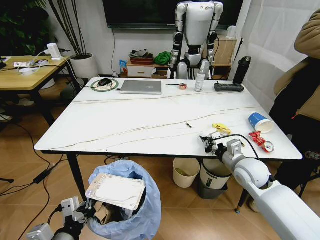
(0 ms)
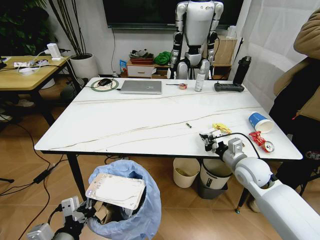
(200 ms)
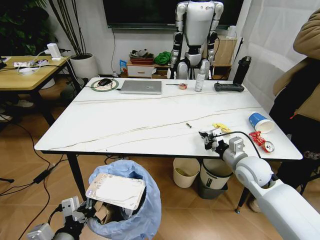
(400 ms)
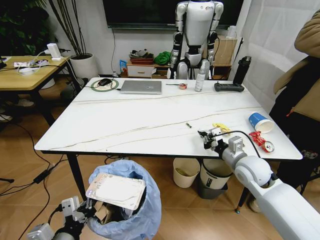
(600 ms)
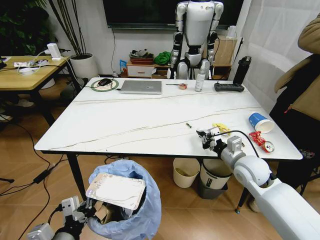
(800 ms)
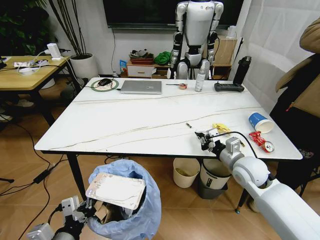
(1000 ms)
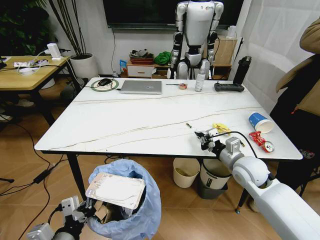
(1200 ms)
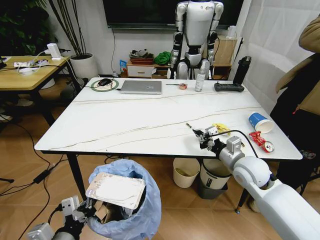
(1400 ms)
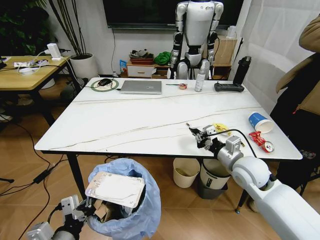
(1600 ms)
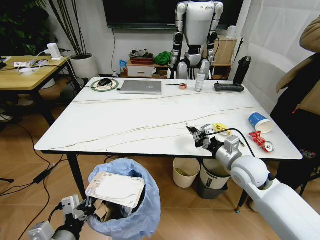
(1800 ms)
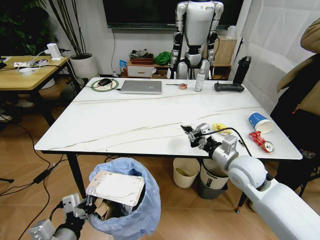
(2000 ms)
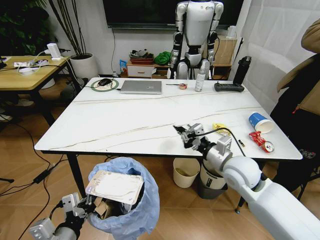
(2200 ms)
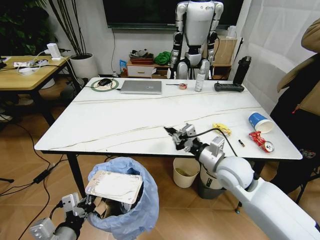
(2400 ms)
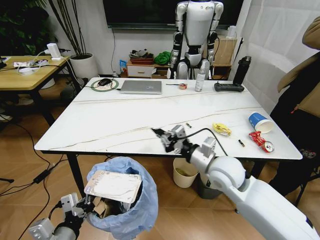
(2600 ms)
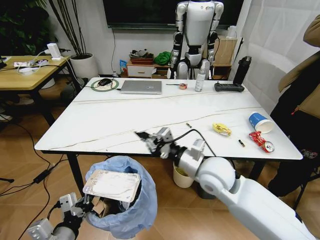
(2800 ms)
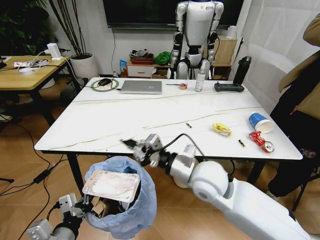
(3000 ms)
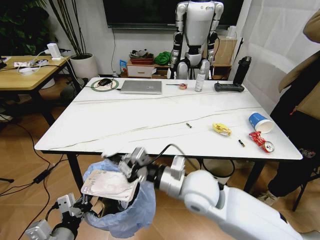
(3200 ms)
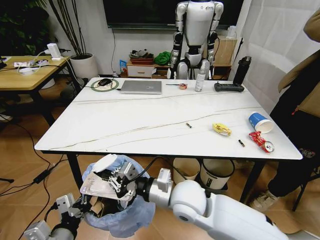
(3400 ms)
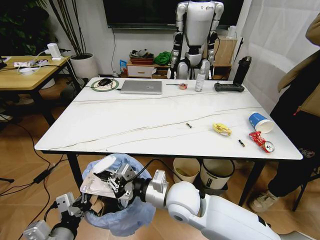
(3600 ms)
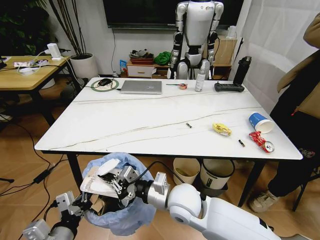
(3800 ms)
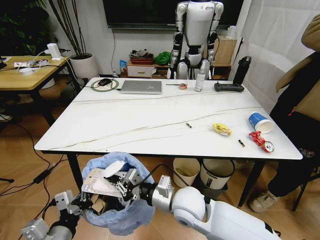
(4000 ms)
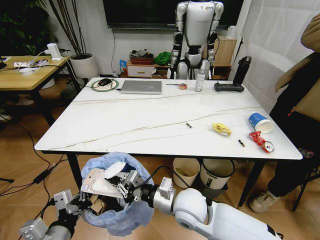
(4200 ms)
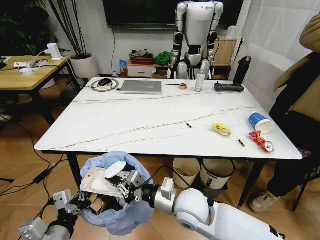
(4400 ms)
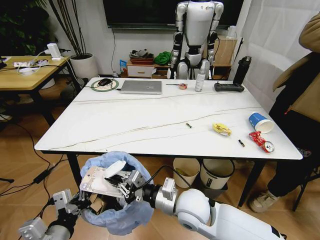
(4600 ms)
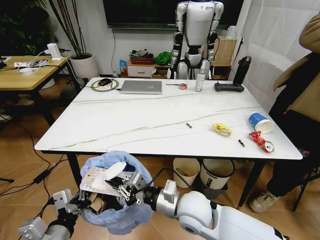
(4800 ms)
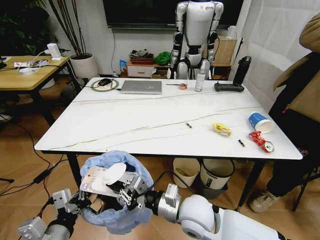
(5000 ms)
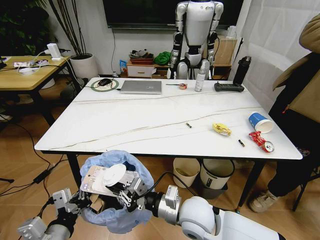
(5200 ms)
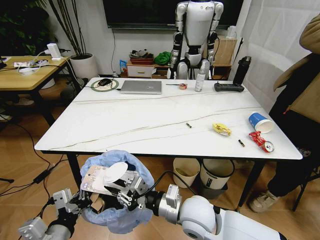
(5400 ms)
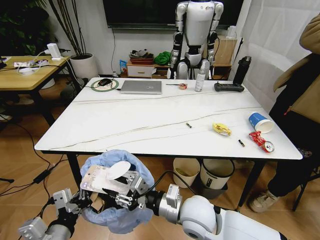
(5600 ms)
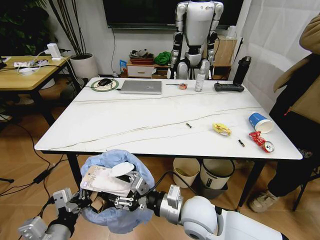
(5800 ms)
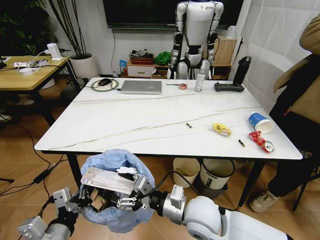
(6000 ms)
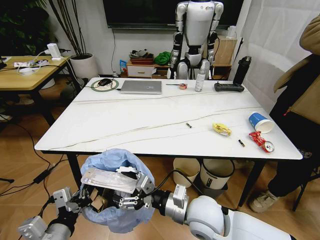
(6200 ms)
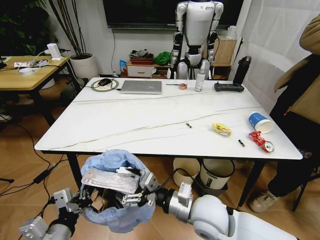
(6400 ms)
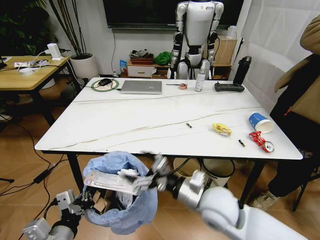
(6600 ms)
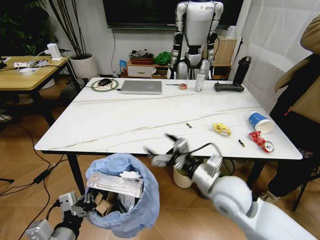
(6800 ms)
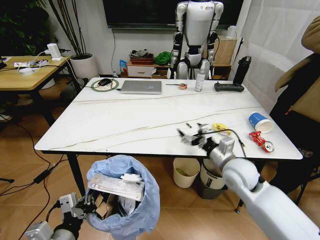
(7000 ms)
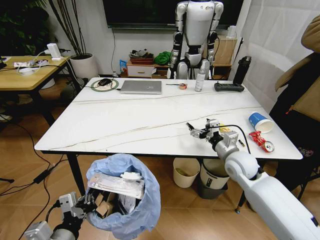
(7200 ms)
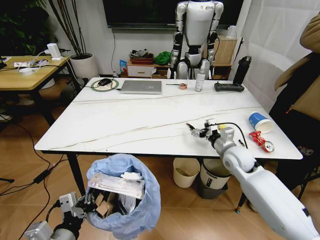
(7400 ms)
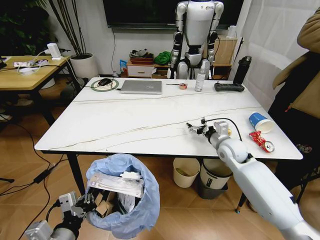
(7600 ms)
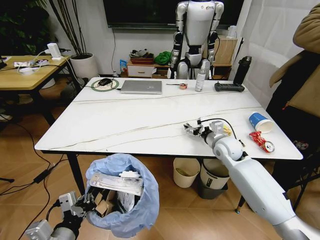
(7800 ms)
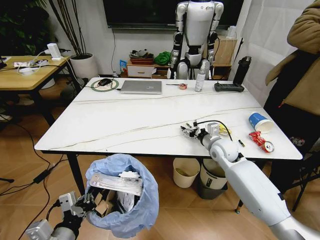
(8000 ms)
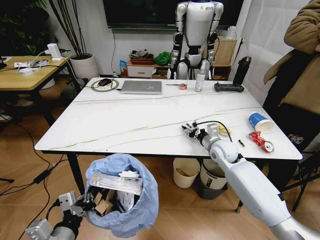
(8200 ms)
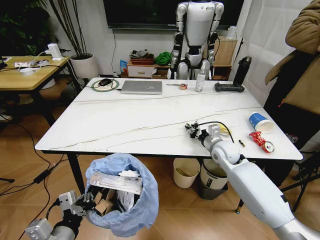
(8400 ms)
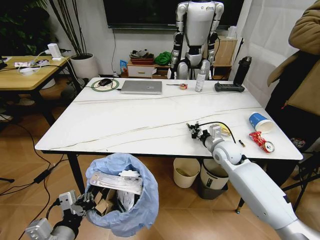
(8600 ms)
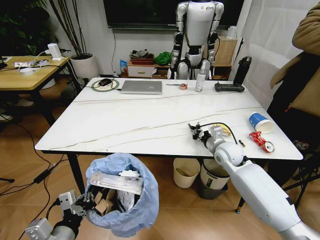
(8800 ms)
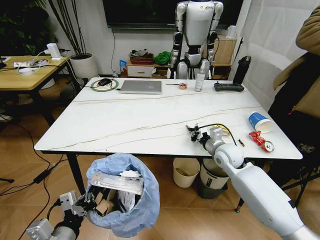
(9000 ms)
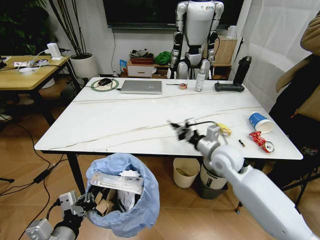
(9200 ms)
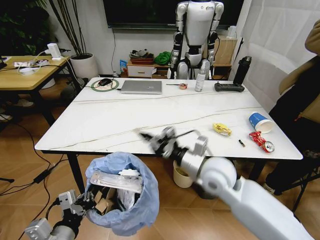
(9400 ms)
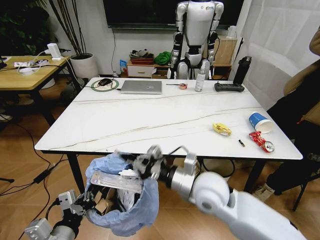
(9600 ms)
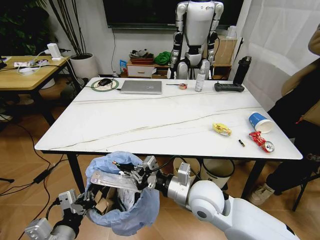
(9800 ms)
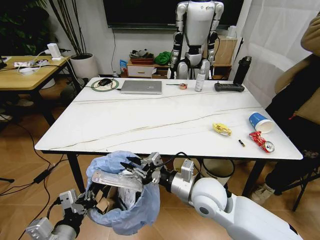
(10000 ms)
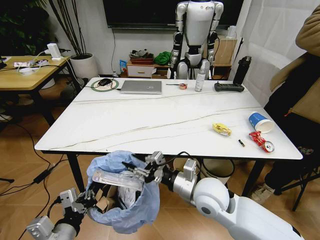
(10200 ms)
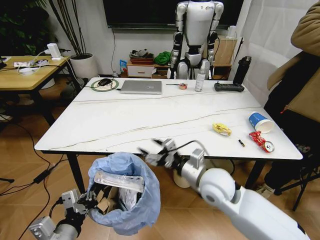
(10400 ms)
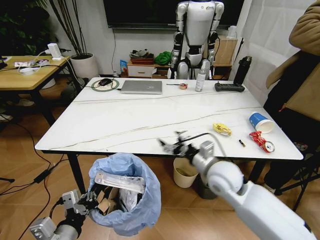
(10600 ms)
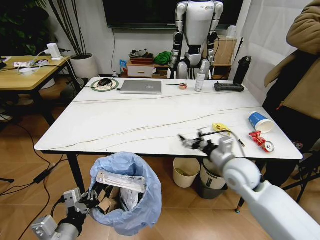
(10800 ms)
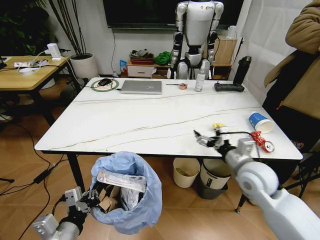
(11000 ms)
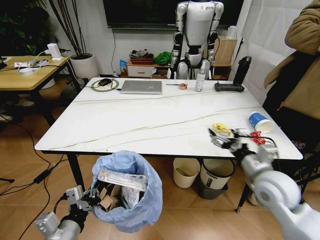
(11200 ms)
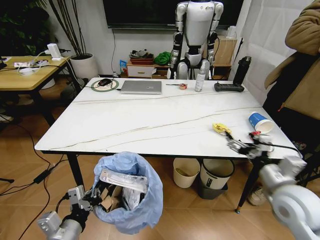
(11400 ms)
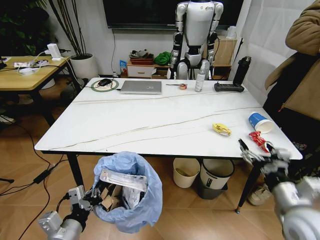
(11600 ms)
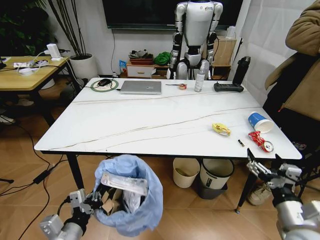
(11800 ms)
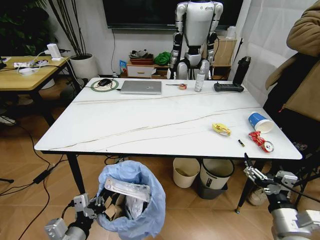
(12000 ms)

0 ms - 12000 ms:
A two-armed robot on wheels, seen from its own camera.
Task of the whole recording: Pick up the trash bin and place the trash from the table into it.
0 ms - 1600 ms: The grippers move only a little.
1600 ms - 3000 ms: The right gripper moves to the left, some 15 cm.
3000 ms - 4400 ms: The right gripper is displaced downward by some 10 cm.
4400 ms - 6000 ms: The right gripper opens up.
6000 ms - 7600 ms: The right gripper shifts some 25 cm forward and to the right.
7600 ms - 9000 ms: The right gripper closes its fingers.
9000 ms - 10400 ms: The right gripper moves backward and to the left, roughly 15 cm, and opens its fingers.
10400 ms - 12000 ms: The right gripper is displaced to the right and backward by about 25 cm.

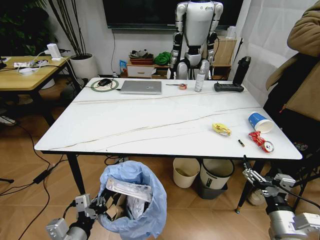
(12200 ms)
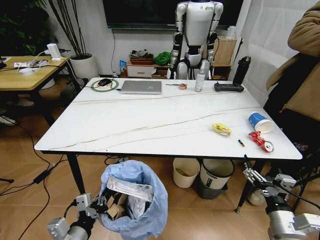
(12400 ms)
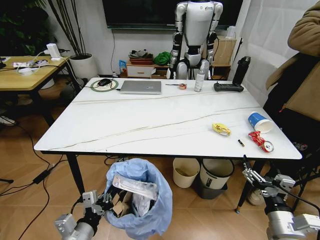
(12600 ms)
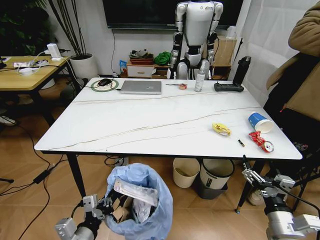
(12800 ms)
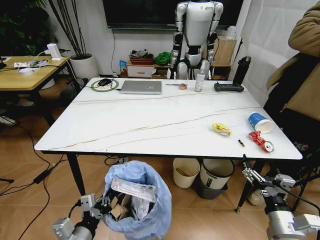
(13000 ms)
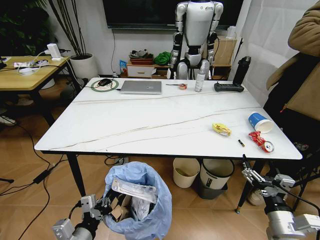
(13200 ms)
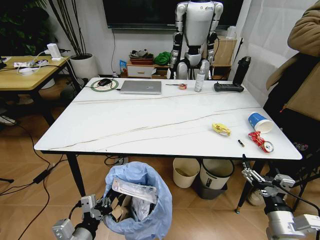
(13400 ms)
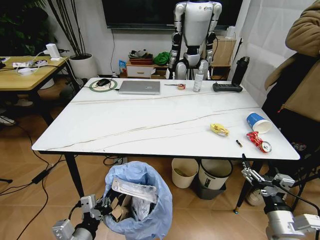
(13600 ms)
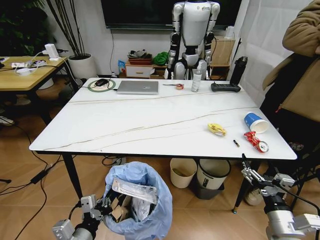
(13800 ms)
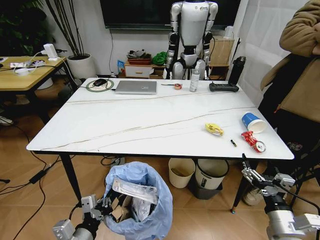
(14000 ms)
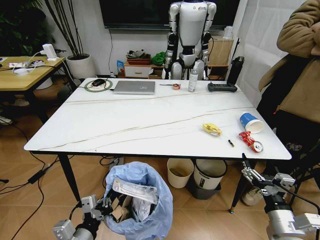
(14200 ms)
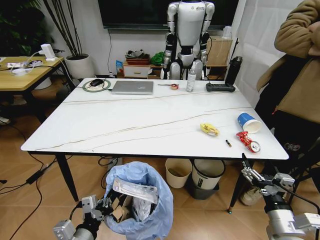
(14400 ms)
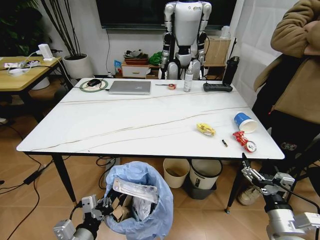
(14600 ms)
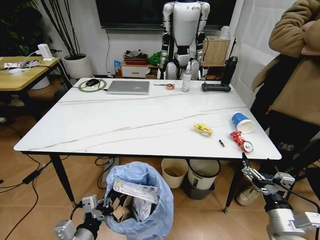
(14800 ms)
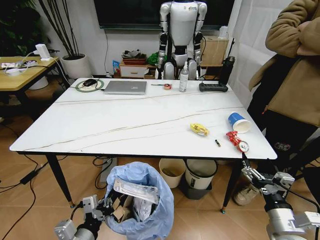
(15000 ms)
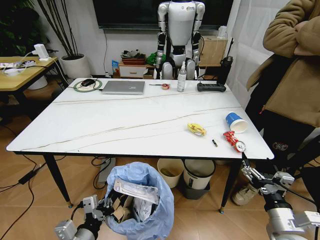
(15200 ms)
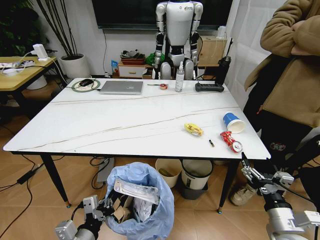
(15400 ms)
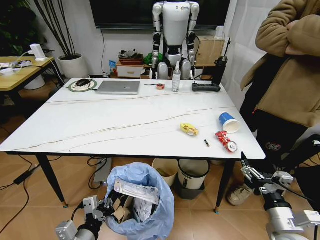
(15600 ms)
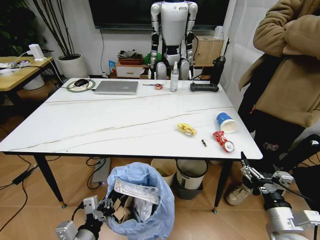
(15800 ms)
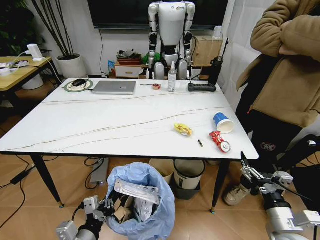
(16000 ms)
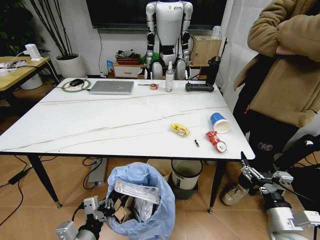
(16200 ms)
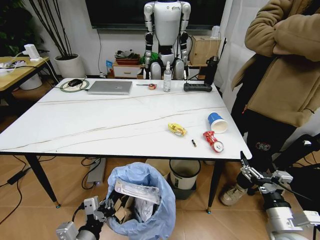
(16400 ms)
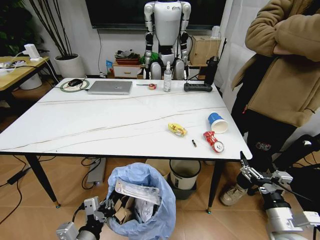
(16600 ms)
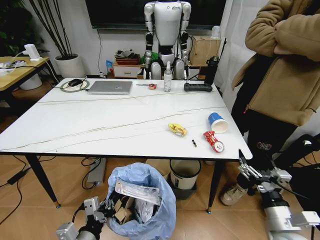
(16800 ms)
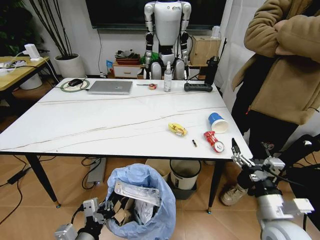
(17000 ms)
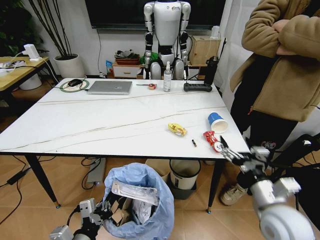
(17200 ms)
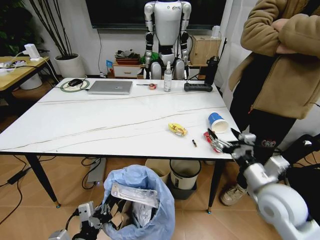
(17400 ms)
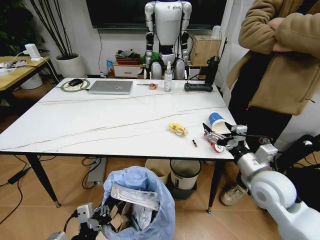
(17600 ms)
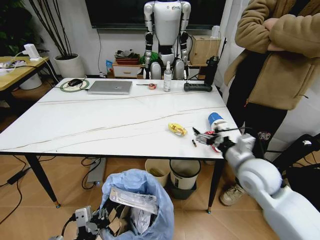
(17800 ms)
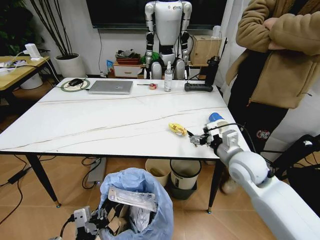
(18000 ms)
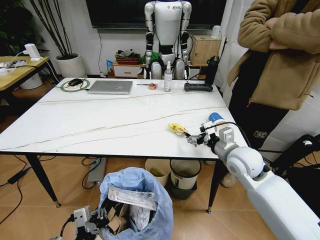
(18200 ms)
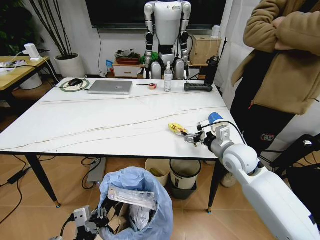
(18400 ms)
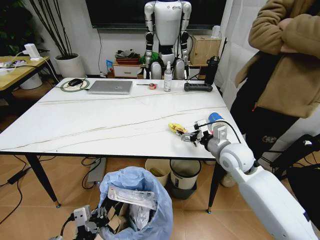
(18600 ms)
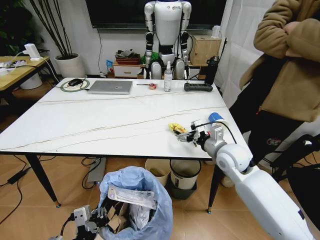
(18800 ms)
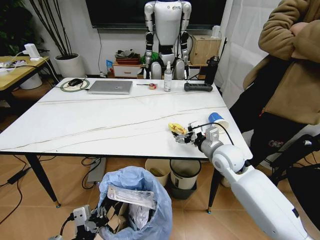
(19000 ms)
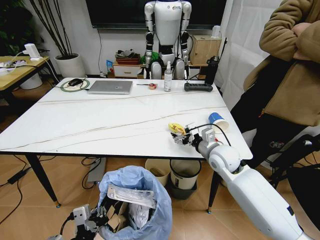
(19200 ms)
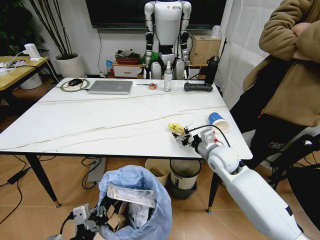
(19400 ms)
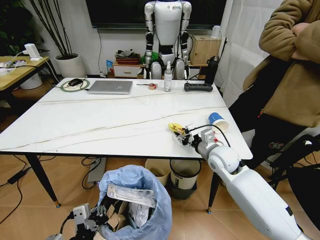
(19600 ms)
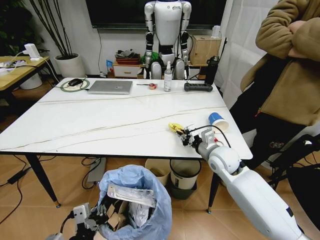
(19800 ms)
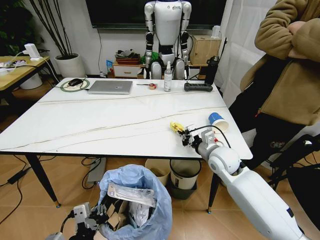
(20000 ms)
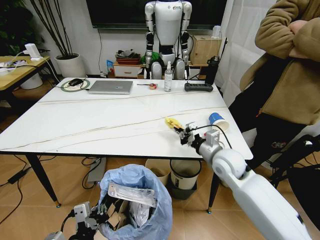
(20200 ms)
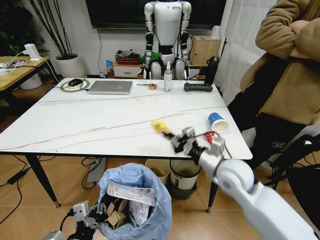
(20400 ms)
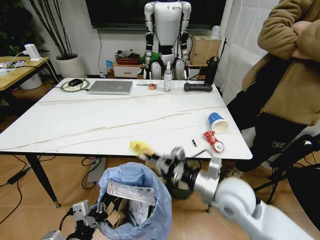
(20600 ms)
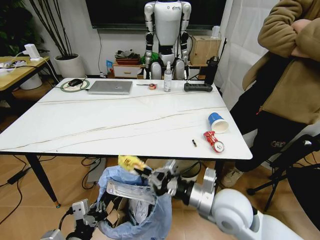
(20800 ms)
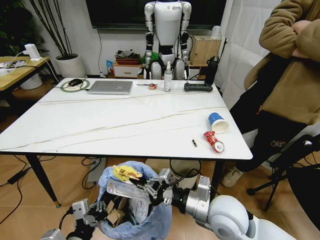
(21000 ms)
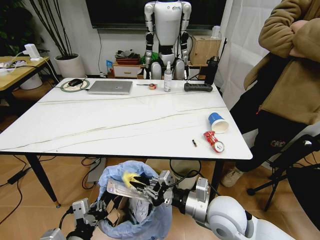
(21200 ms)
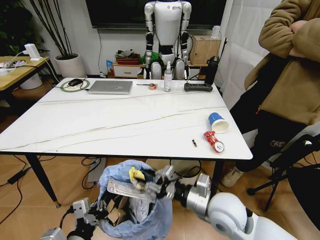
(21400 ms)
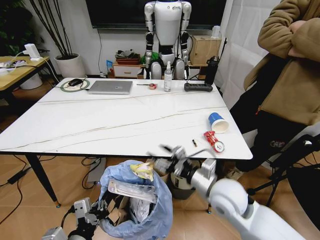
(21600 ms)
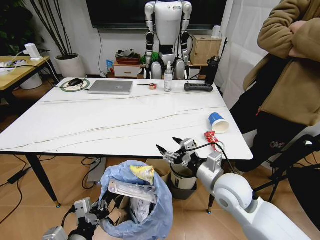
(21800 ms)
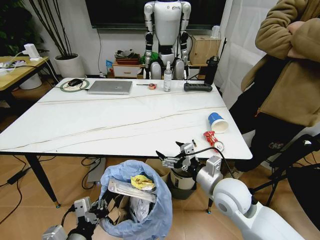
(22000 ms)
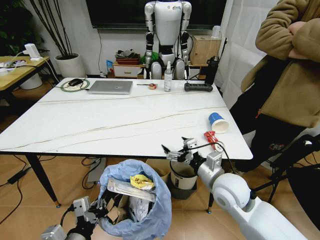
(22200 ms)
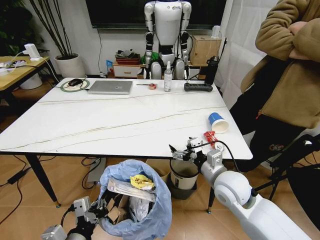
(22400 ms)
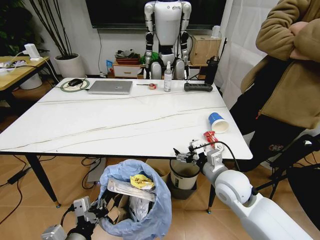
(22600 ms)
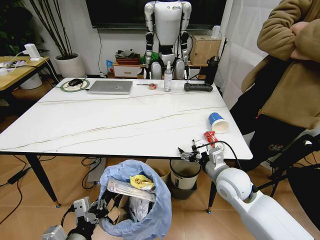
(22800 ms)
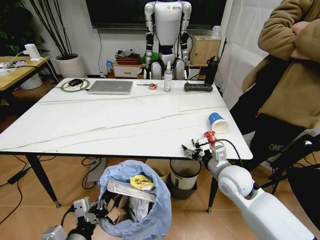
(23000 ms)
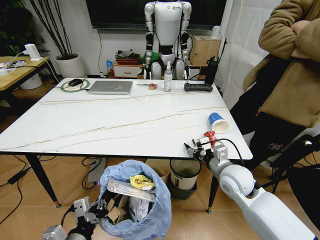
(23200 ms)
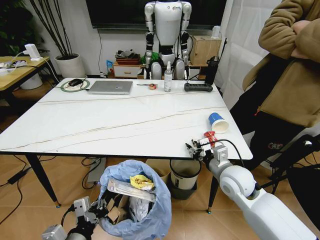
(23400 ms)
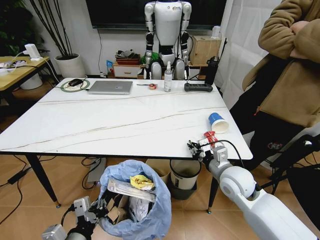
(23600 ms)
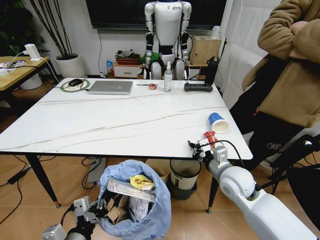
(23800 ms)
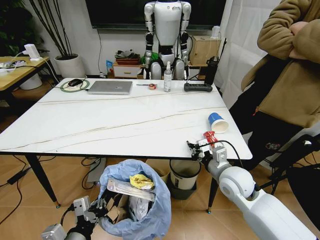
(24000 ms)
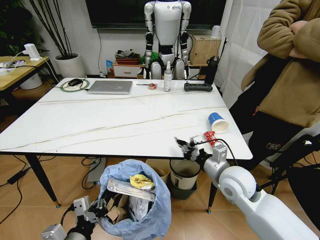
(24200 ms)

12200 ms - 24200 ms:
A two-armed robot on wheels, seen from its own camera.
Task of the whole recording: Pick up the trash bin and place the trash from the table into it.
16600 ms - 18200 ms: The right gripper travels forward, upward and to the left by some 25 cm.
18200 ms - 19800 ms: The right gripper moves approximately 5 cm, and closes.
19800 ms - 21200 ms: The right gripper moves backward, about 15 cm.
21200 ms - 22600 ms: The right gripper is displaced forward by about 10 cm, and opens up.
22600 ms - 24200 ms: The right gripper closes.
